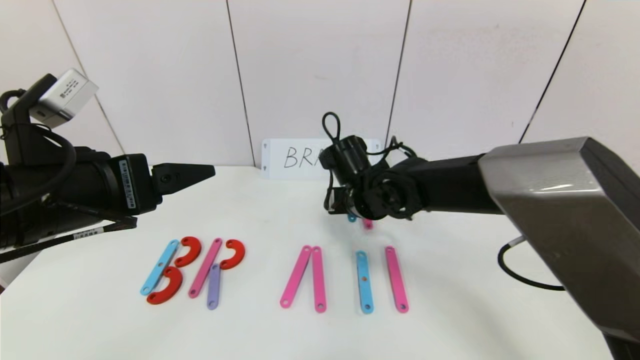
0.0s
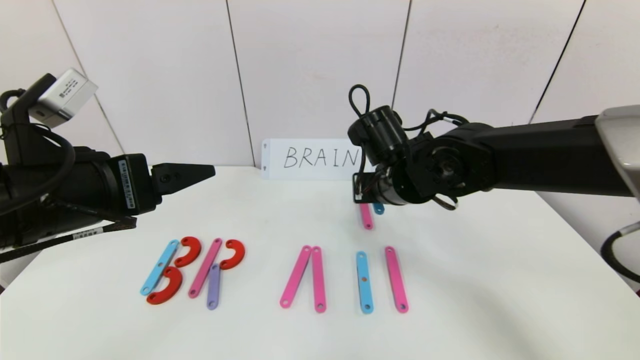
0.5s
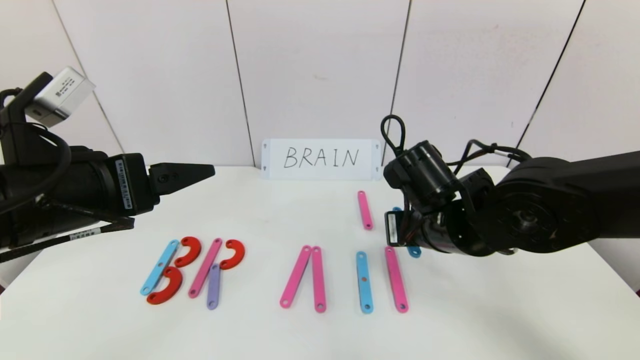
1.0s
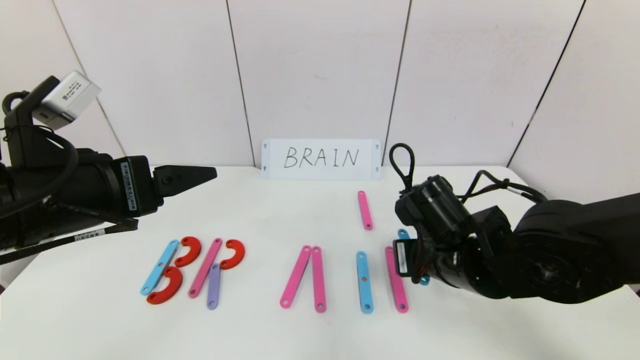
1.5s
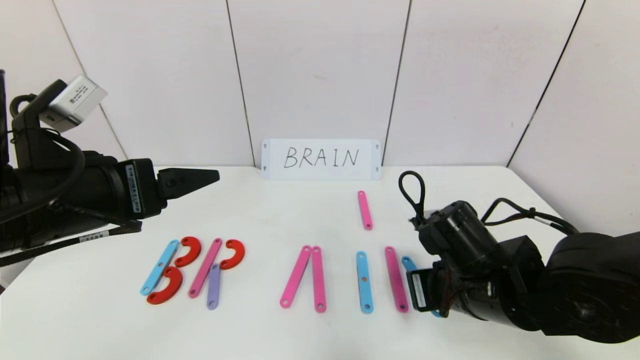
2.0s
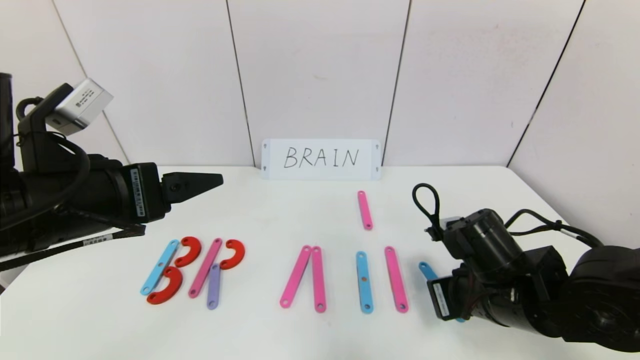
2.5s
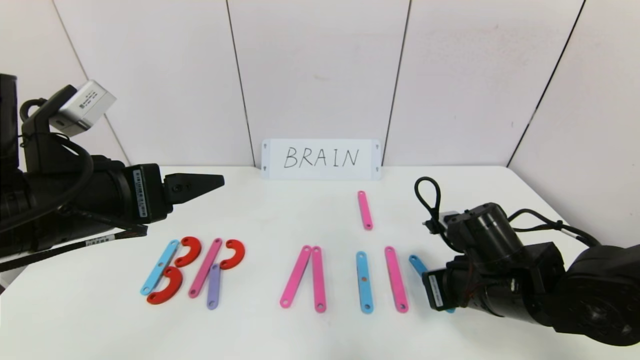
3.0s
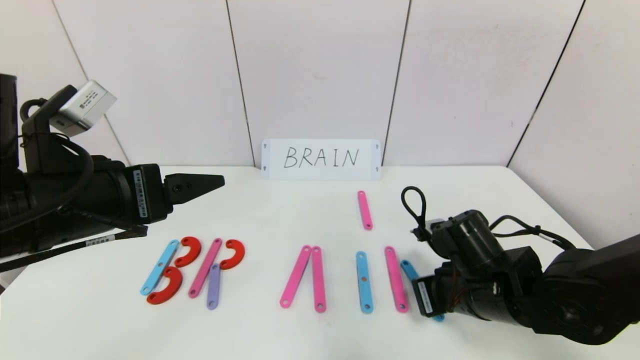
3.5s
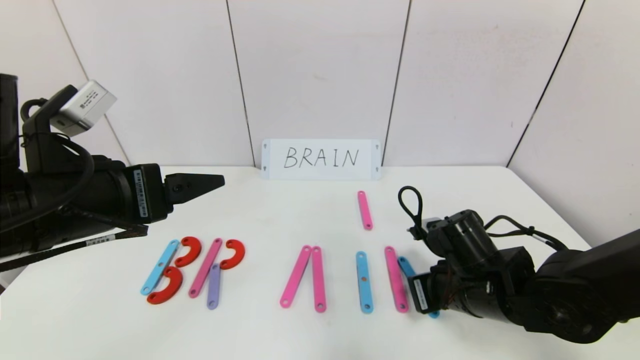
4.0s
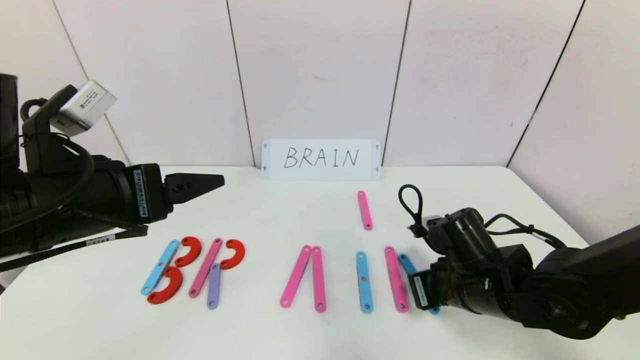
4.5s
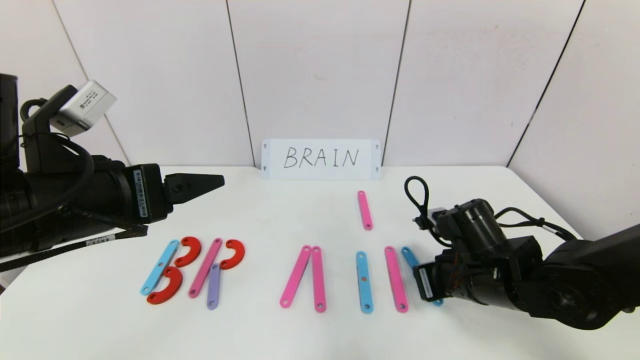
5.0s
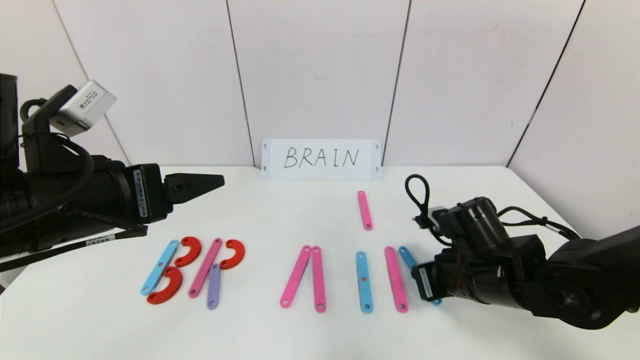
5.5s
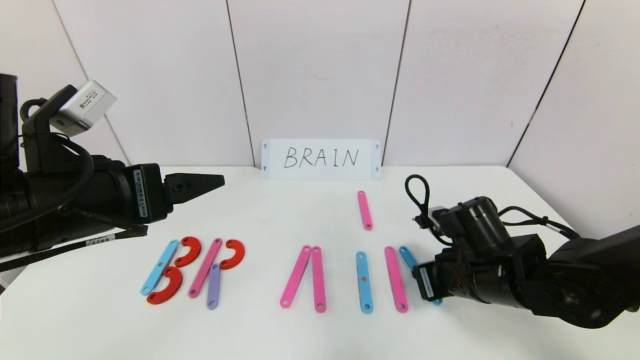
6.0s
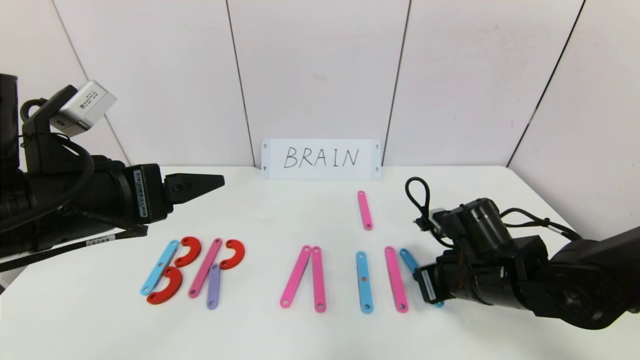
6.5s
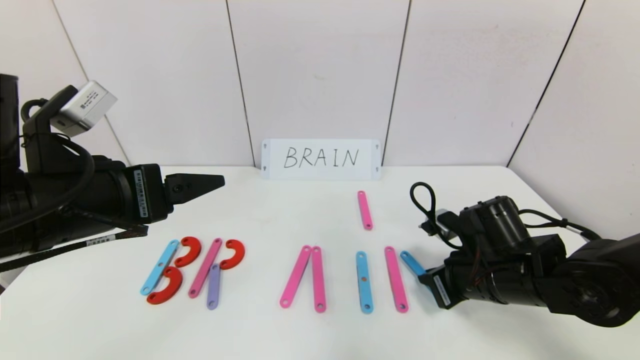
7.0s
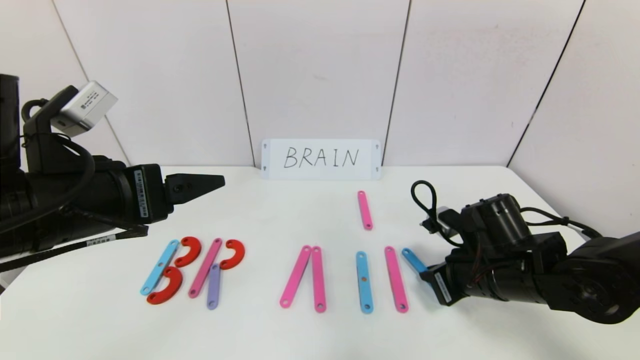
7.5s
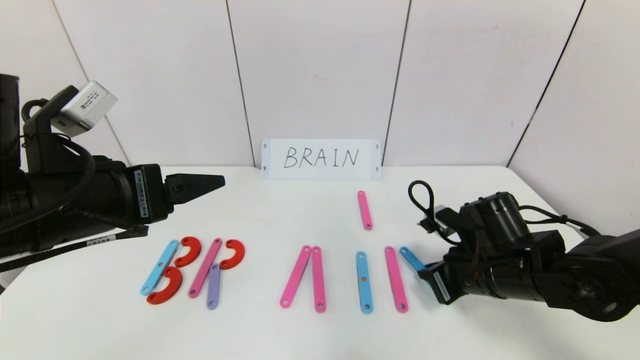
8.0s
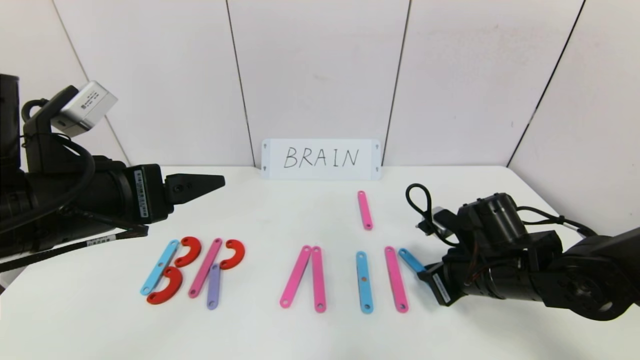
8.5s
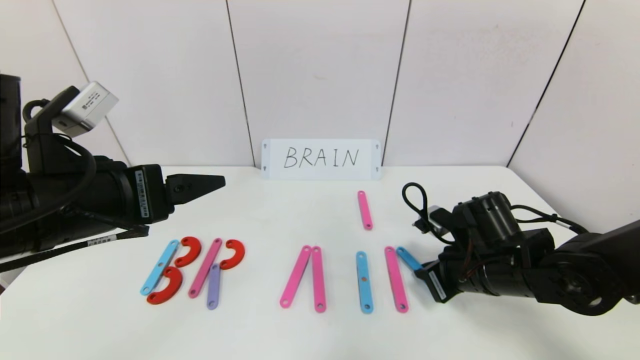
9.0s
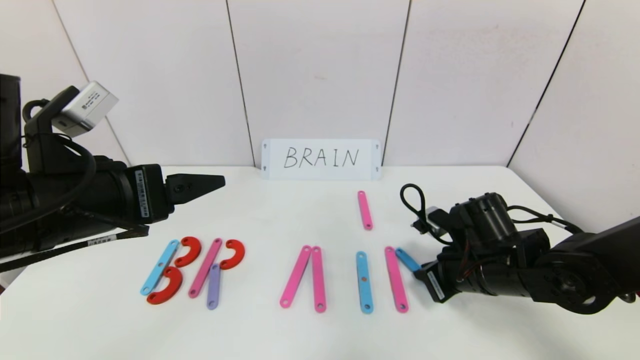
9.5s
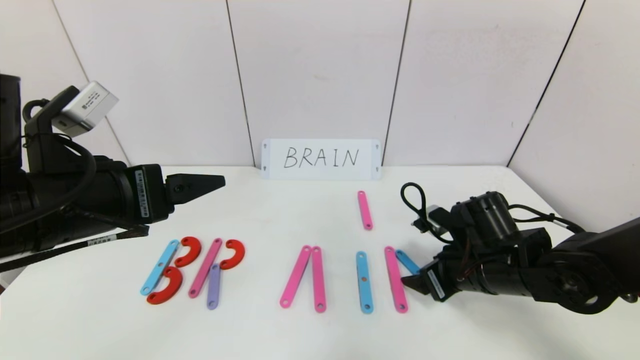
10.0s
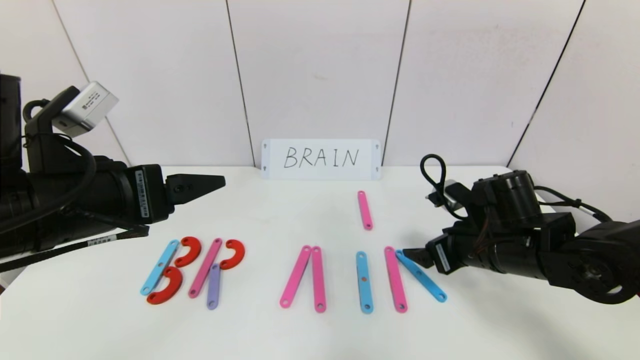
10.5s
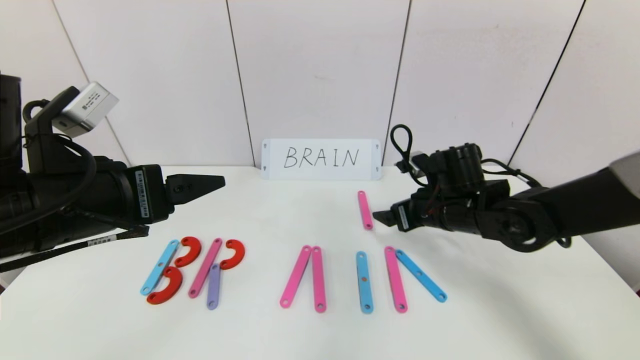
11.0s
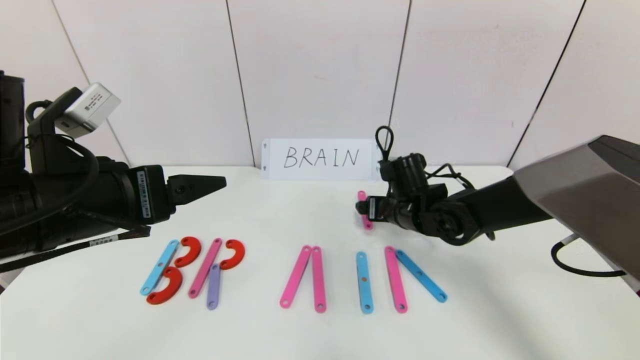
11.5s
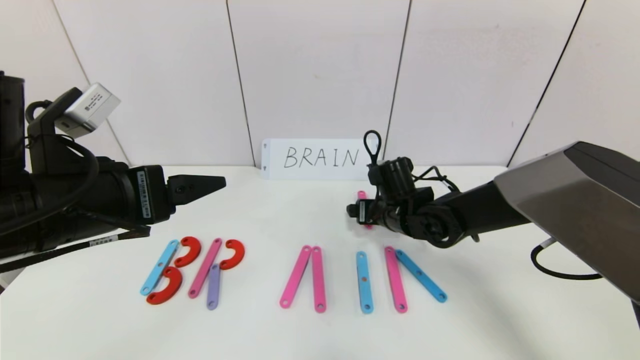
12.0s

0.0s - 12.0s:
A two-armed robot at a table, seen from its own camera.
Task of the whole recording: rearrange the word baai as brain.
0.0s - 2.0s: The right gripper travels backward and to the right by roughly 20 cm.
2.0s - 6.0s: There are only small adjustments of the grippers.
6.0s - 8.0s: The grippers move only a little.
8.0s - 10.0s: The right gripper opens up.
10.0s - 12.0s: The right gripper is displaced forward and to the left by some 15 cm.

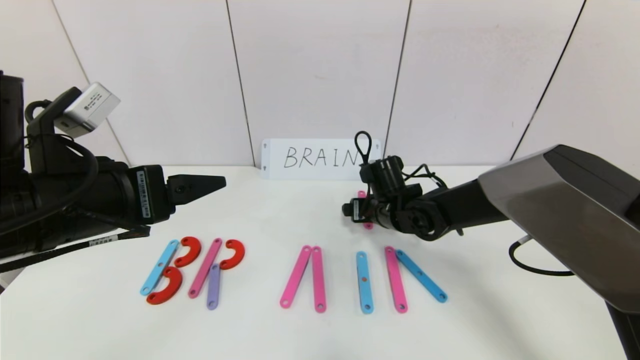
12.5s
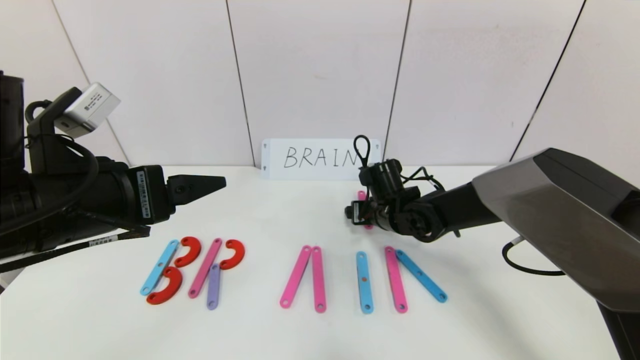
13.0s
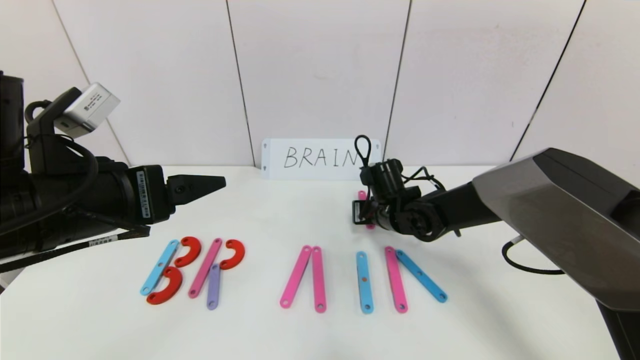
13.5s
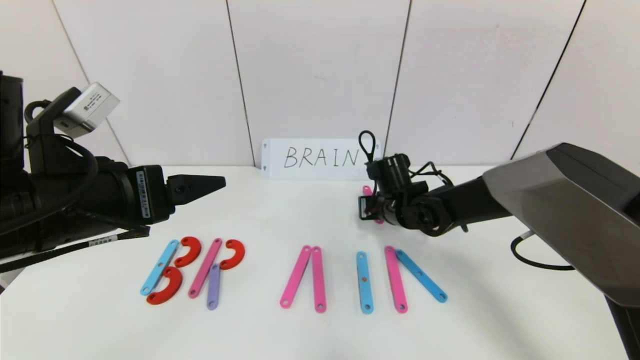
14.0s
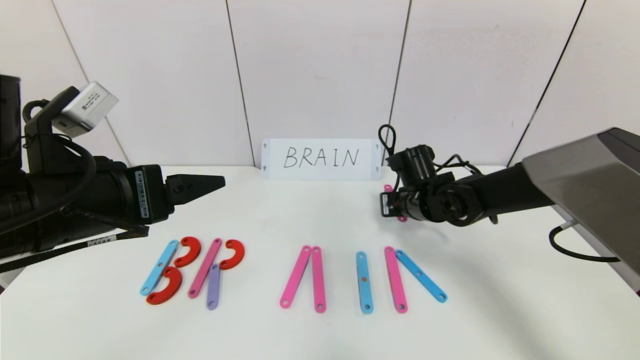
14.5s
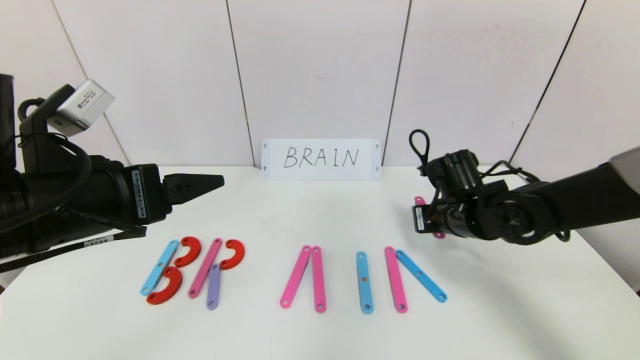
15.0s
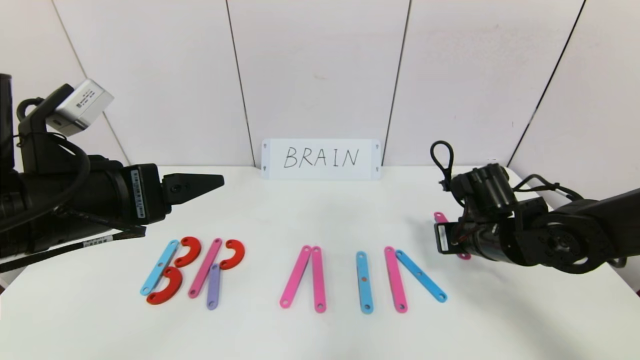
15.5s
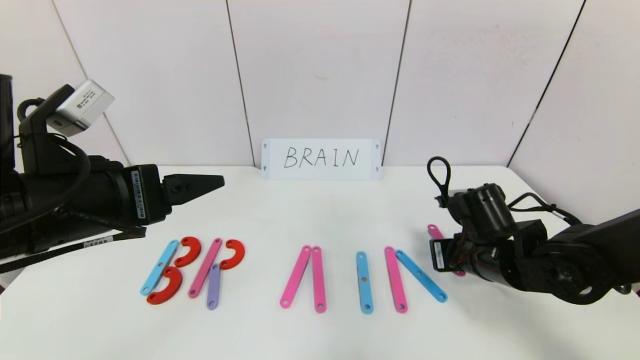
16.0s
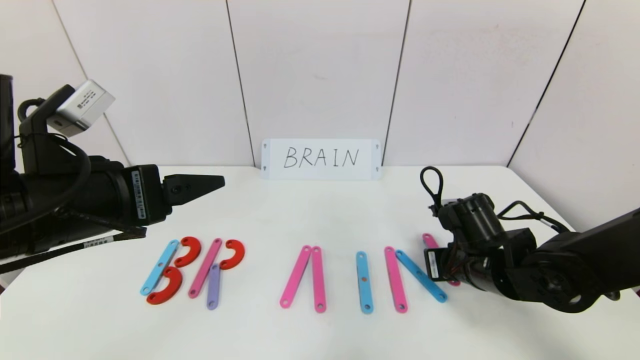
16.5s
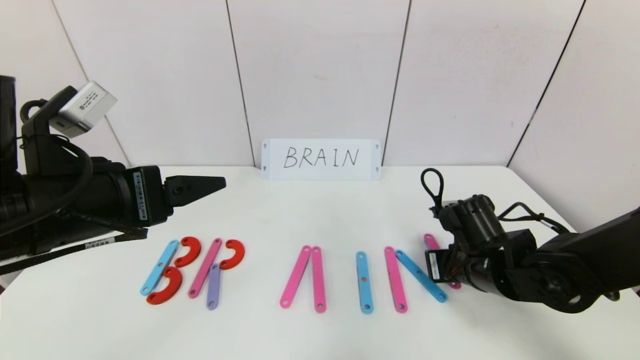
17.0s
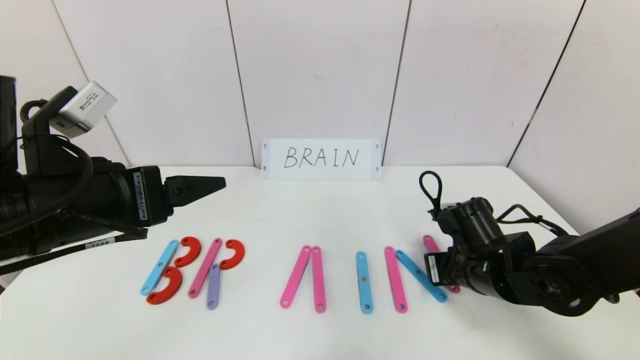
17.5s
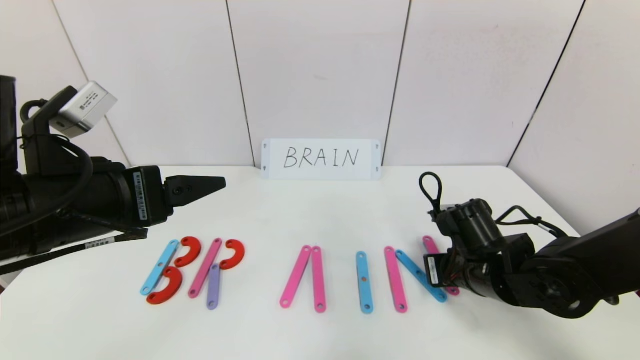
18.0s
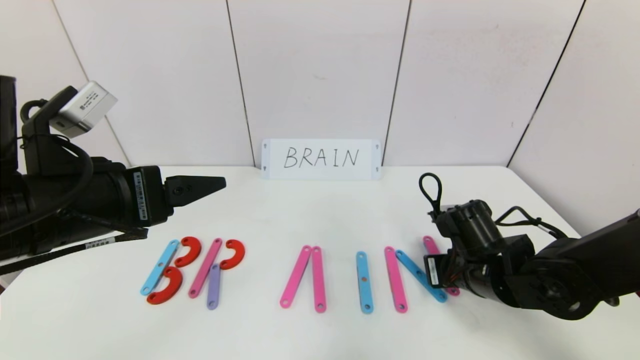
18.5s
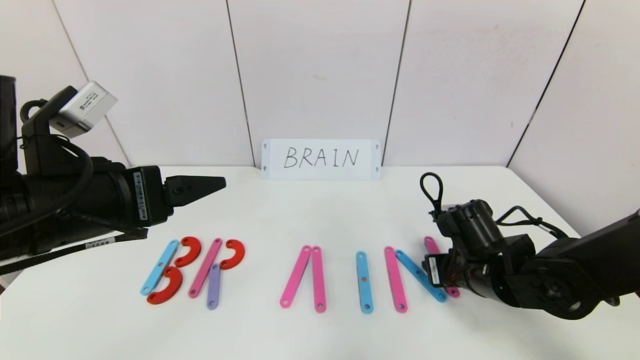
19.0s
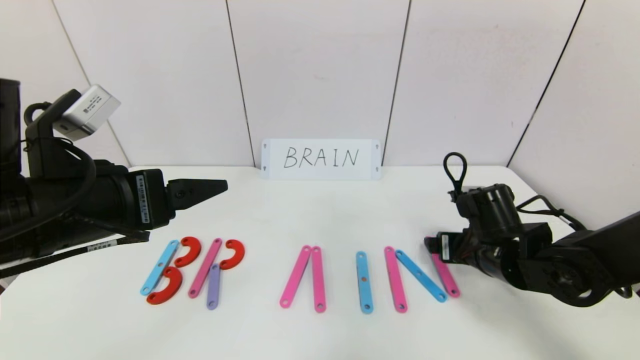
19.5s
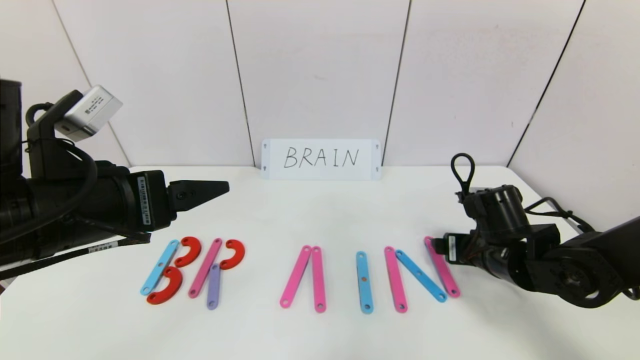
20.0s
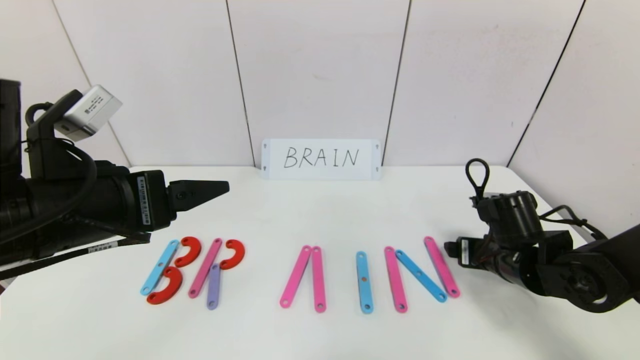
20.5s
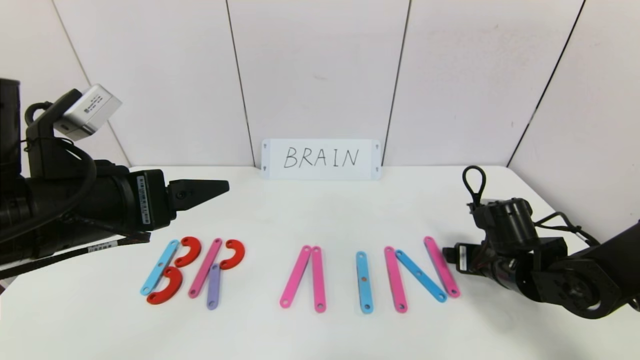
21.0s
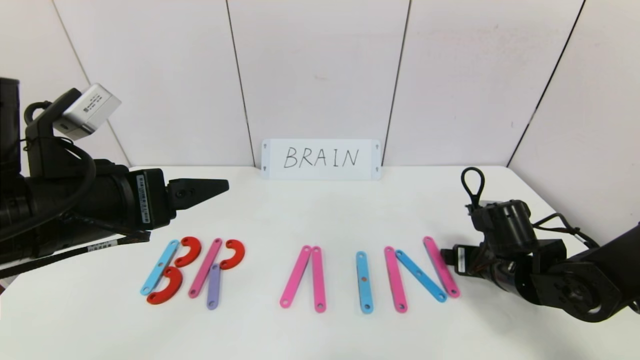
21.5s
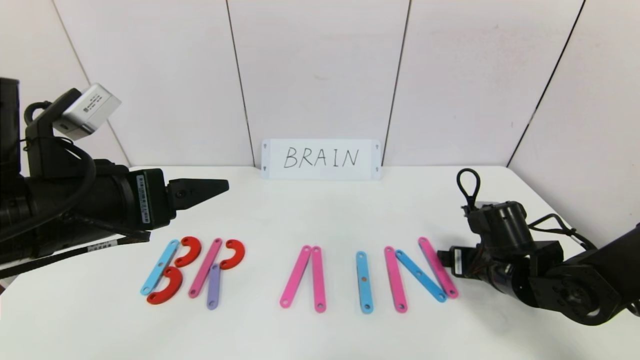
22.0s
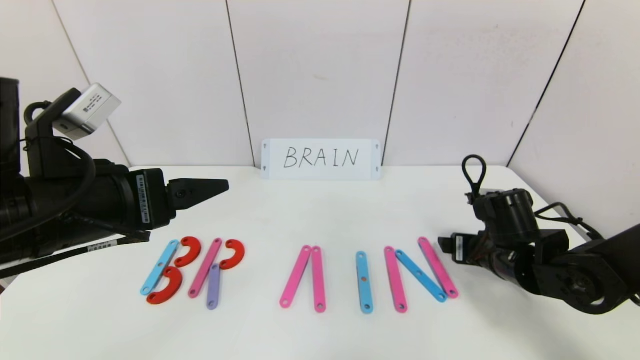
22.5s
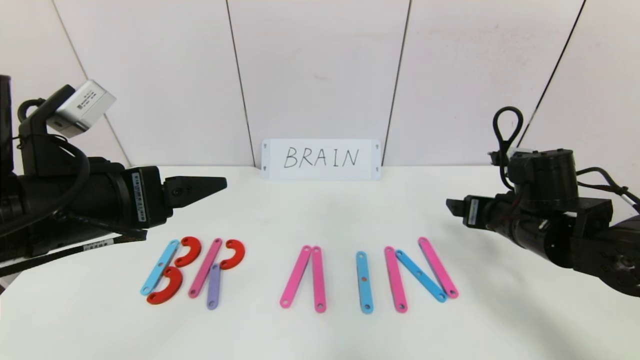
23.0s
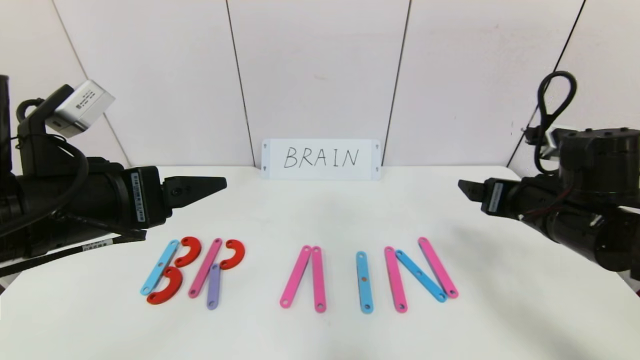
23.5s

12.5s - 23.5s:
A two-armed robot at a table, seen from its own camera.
Task of the whole recording: rearrange the word baai as brain.
Step, 12.5s - 20.0s: Place the character N after character I.
12.5s - 14.5s: The right gripper moves to the right, roughly 5 cm, and closes.
14.5s - 16.0s: The right gripper goes roughly 15 cm backward and to the right.
16.0s - 18.0s: The grippers move only a little.
18.0s - 20.0s: The right gripper opens its fingers.
20.0s - 21.5s: The grippers make only small movements.
21.5s - 23.5s: The right gripper heads upward, covering approximately 10 cm.
